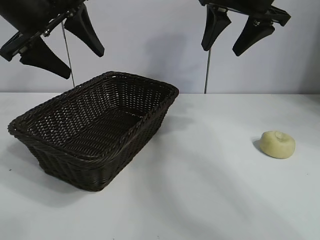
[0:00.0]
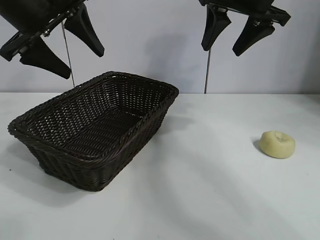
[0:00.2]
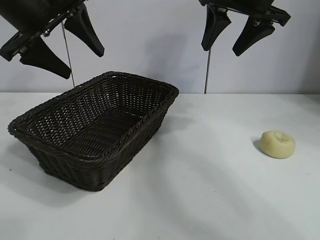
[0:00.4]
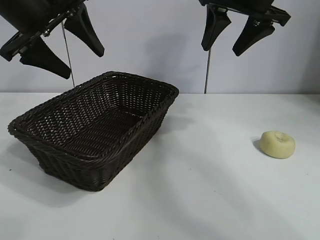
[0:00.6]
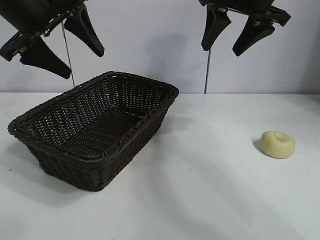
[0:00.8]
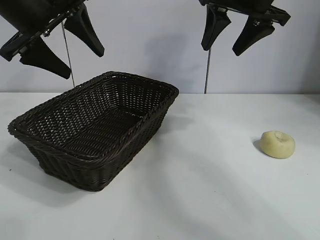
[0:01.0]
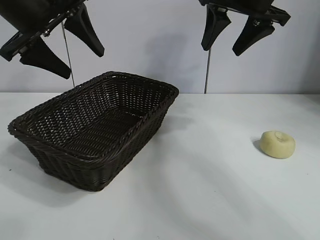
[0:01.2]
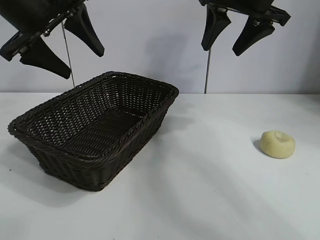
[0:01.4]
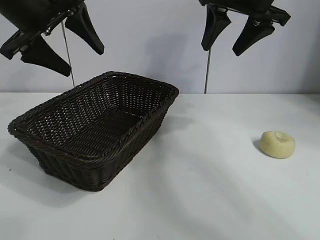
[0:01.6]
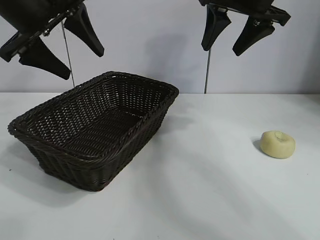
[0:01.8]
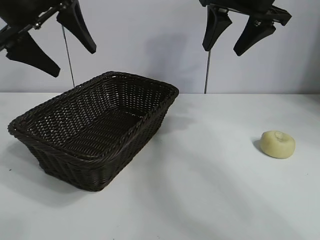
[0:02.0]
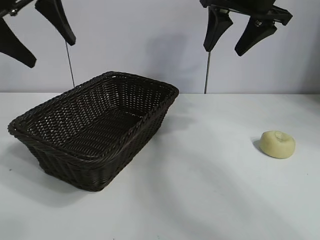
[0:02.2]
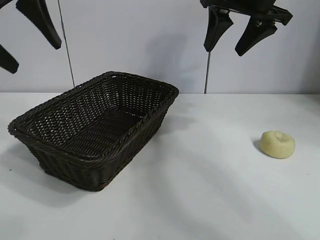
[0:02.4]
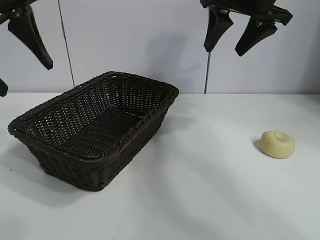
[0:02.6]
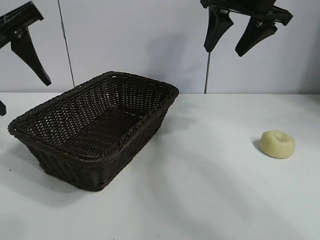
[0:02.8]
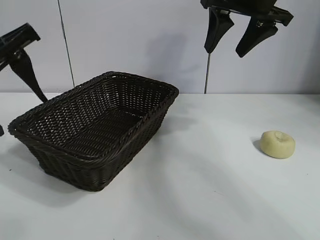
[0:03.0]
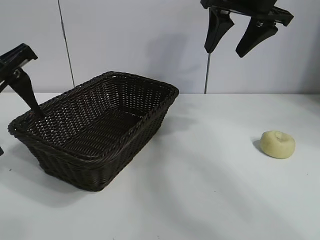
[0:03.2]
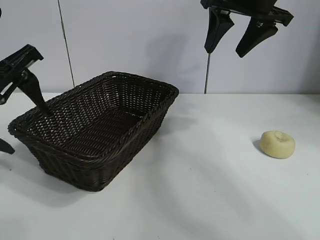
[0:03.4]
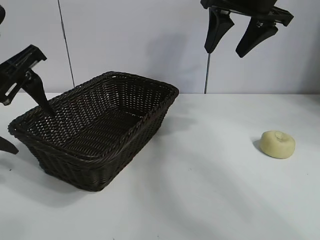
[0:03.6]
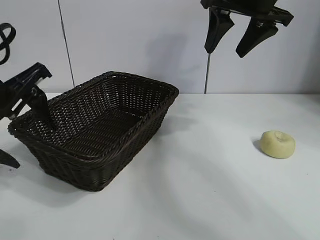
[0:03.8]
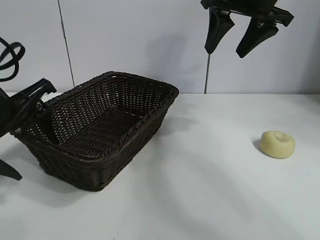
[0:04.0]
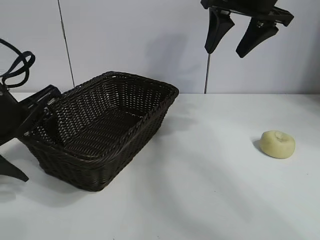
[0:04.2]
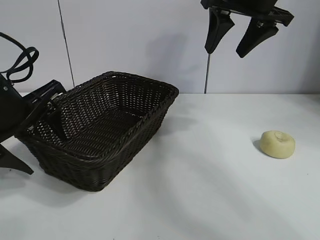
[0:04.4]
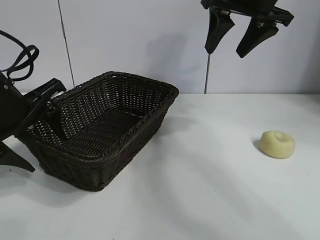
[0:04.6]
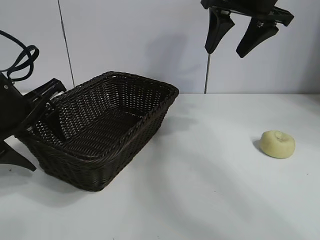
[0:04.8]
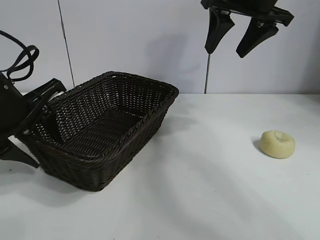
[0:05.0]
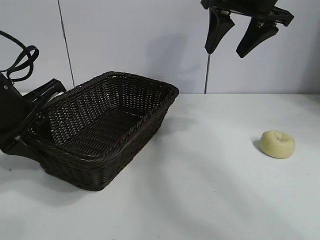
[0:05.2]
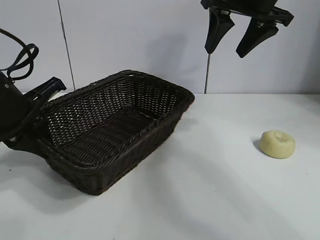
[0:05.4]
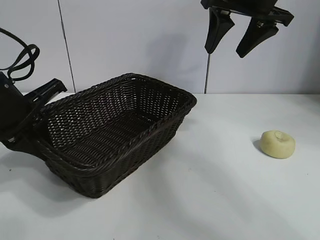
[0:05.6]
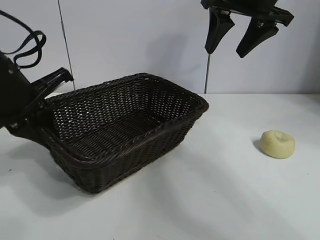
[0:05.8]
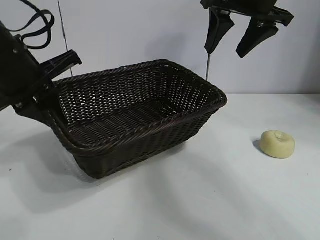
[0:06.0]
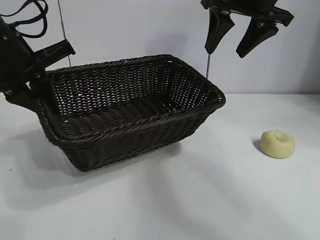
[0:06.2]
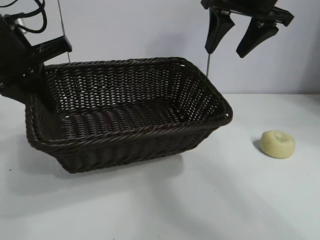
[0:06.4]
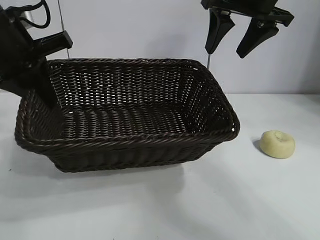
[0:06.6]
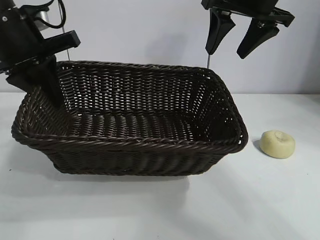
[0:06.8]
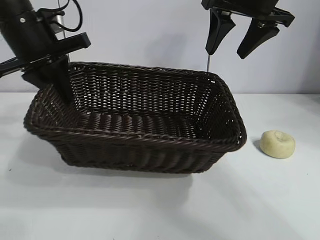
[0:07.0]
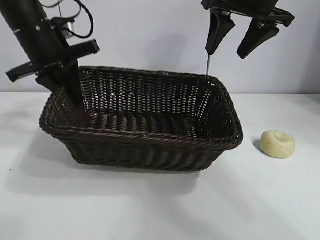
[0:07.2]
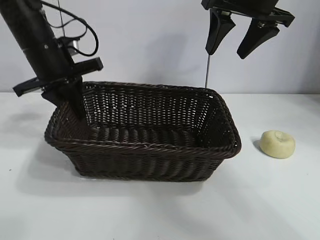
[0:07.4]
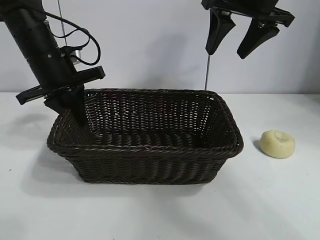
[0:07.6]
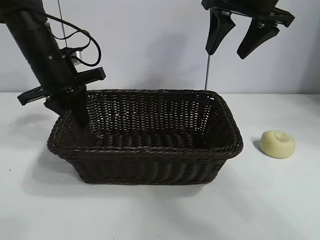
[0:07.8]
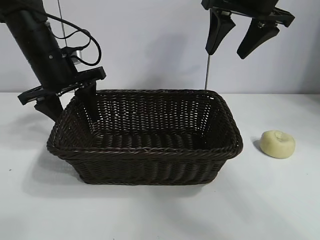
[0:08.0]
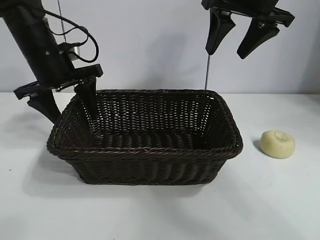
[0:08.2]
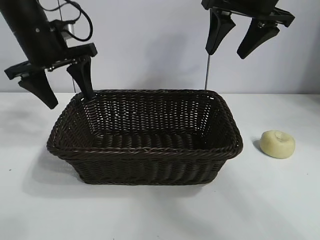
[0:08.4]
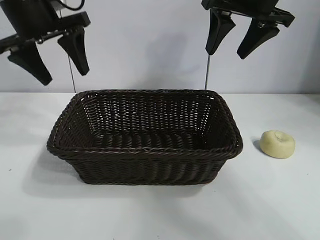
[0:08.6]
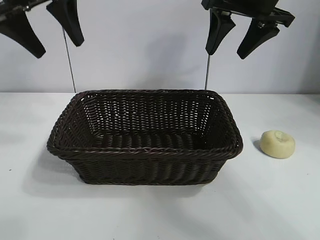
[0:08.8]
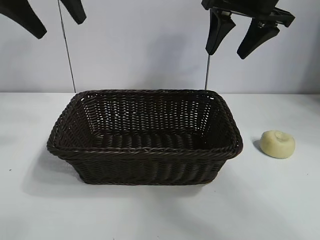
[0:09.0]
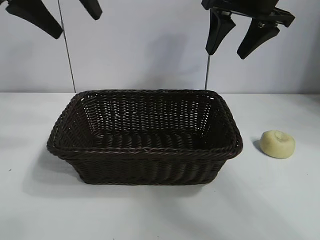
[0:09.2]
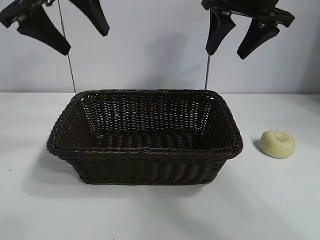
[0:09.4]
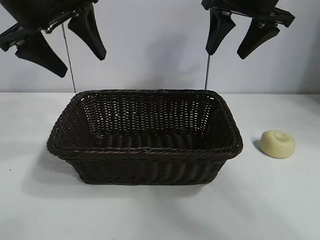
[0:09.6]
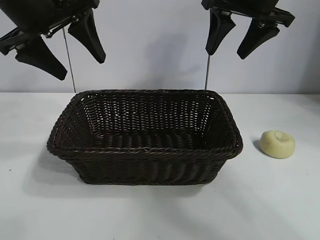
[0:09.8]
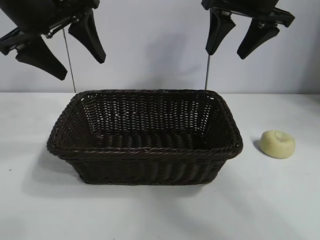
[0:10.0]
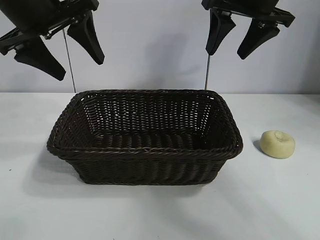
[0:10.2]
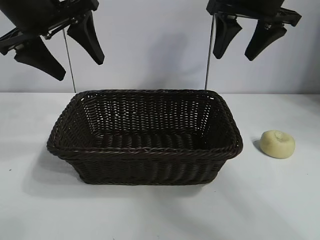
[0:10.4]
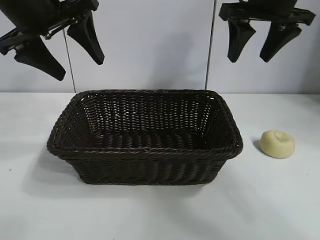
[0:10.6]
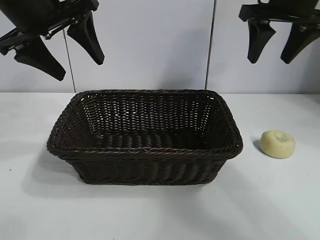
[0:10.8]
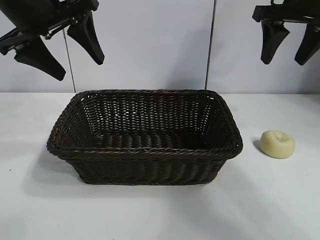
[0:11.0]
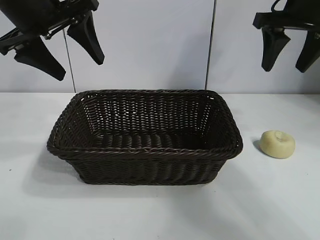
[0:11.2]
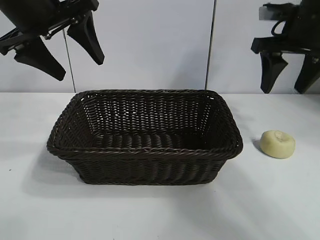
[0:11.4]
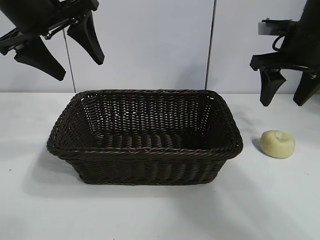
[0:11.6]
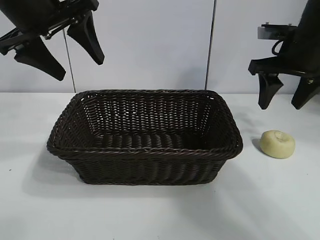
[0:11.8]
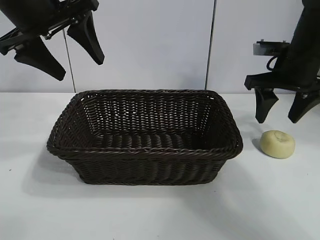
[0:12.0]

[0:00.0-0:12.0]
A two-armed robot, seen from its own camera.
Task of the whole recording: pick up the egg yolk pastry and put it into the basket.
Step, 0:01.6 to 0:05.2: Grasp the basket with left gripper.
Step, 0:05.4 to 0:08.0: Place the basket in the center of view with left gripper.

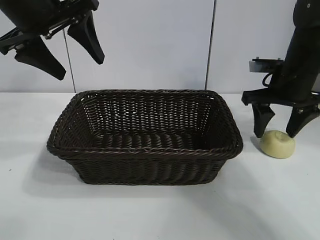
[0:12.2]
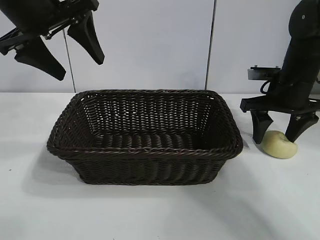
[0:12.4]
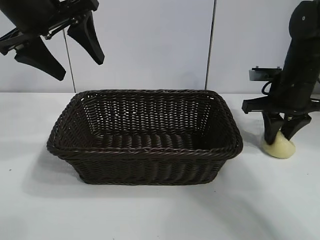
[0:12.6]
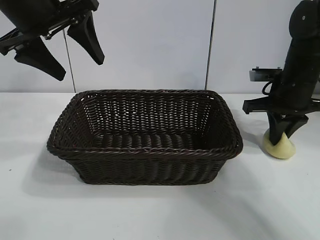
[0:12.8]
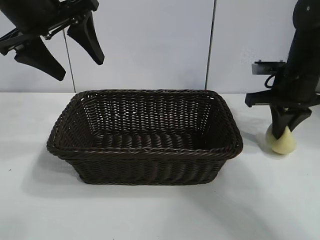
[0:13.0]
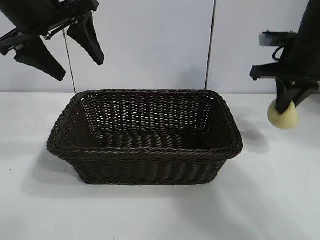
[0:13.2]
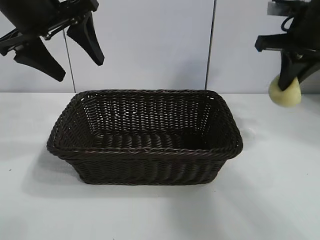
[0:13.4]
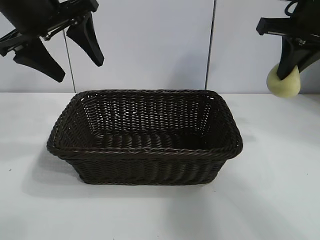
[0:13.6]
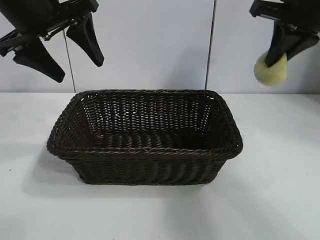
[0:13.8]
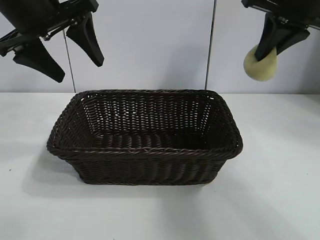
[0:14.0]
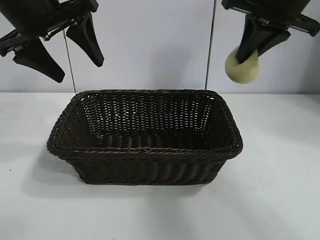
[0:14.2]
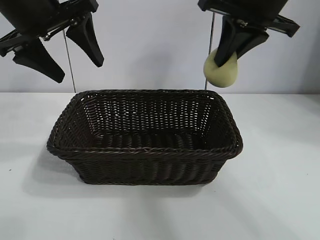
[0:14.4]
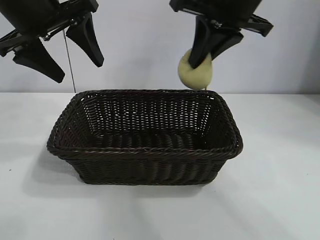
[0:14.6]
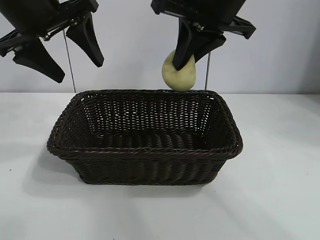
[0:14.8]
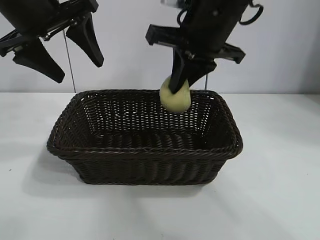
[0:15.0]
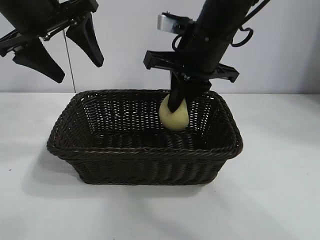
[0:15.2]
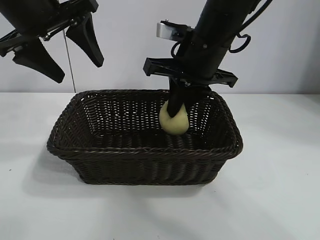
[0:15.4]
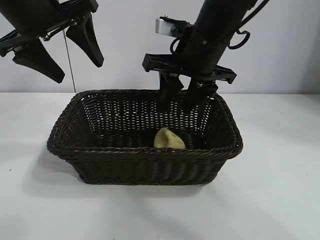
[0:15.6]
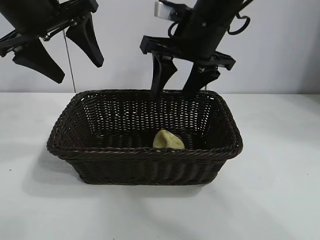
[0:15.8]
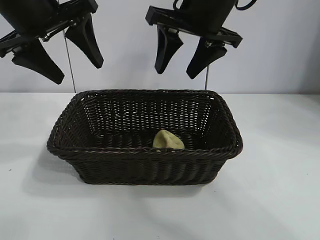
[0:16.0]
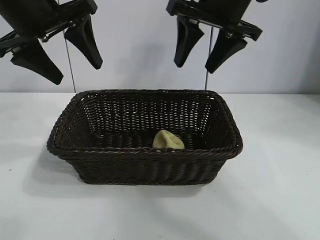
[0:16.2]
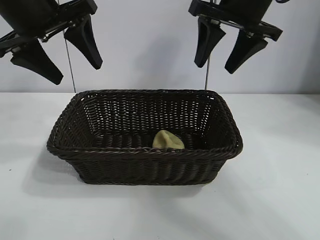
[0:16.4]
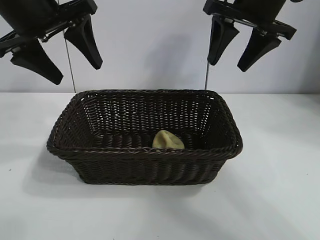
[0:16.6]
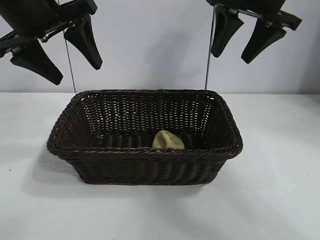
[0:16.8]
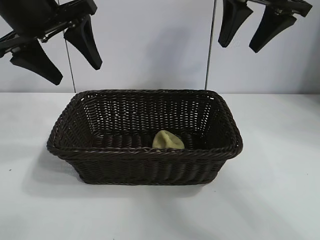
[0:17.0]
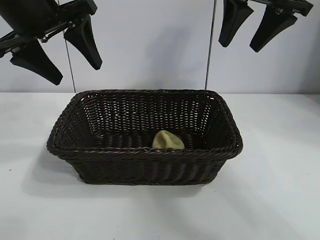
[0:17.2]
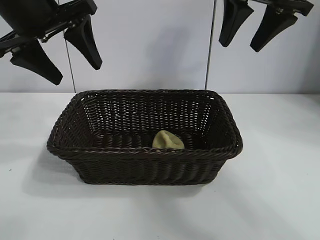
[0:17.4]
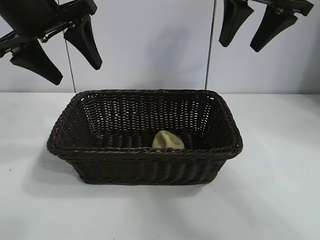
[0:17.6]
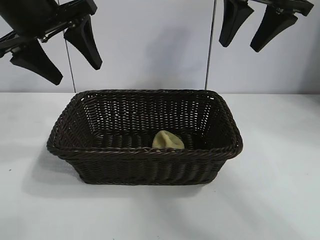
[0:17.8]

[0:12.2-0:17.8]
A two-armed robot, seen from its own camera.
Task of the whole recording: pick up the egg yolk pastry and put it into the basket.
Step, 0:13.0 to 0:15.6: Place the egg yolk pastry in the basket with right gripper.
